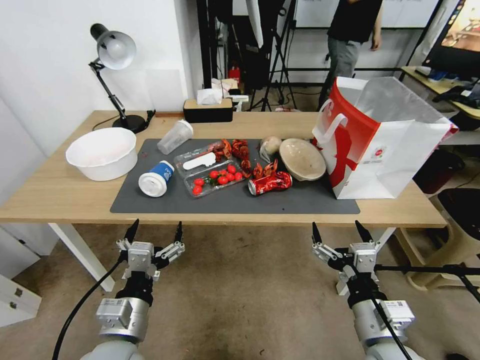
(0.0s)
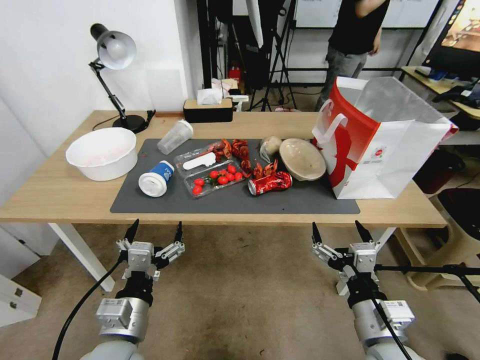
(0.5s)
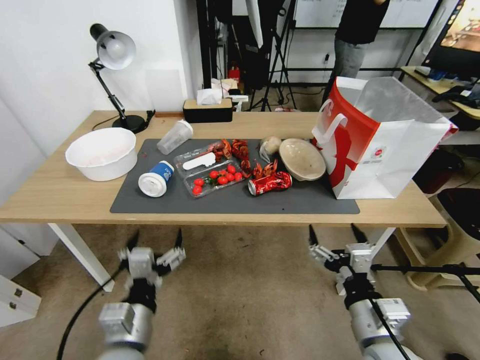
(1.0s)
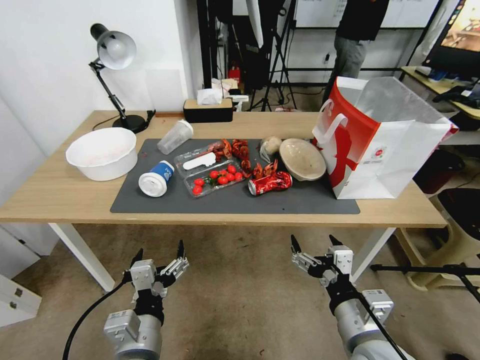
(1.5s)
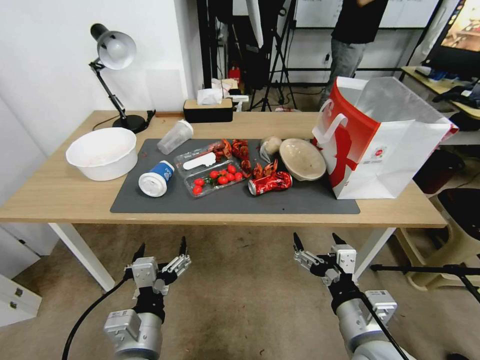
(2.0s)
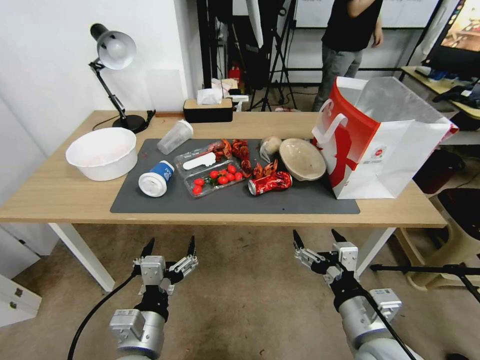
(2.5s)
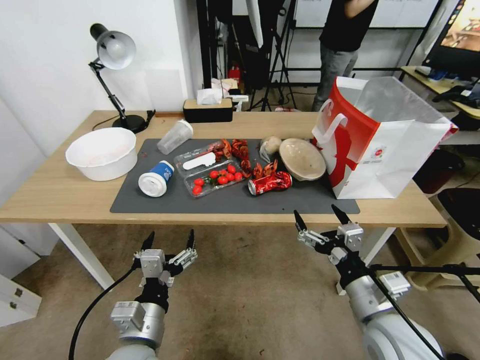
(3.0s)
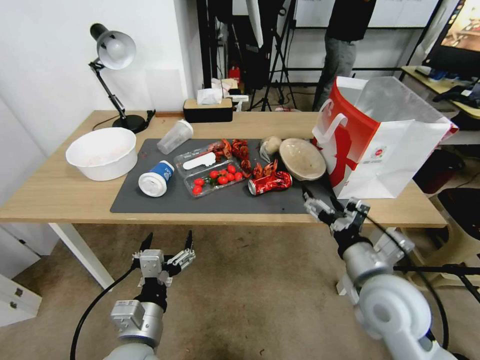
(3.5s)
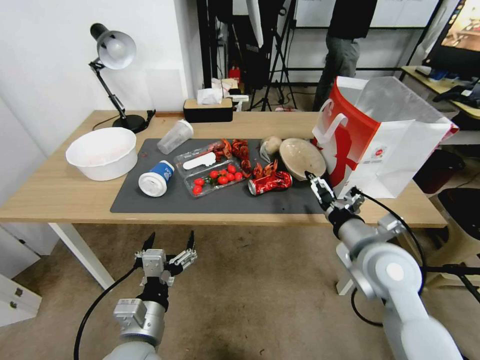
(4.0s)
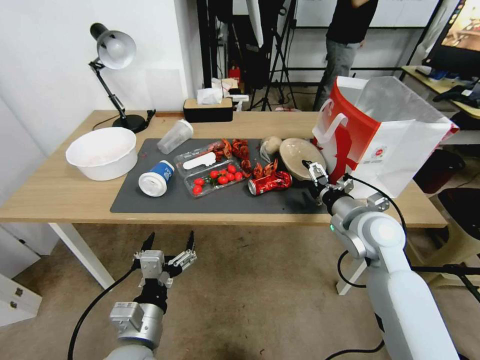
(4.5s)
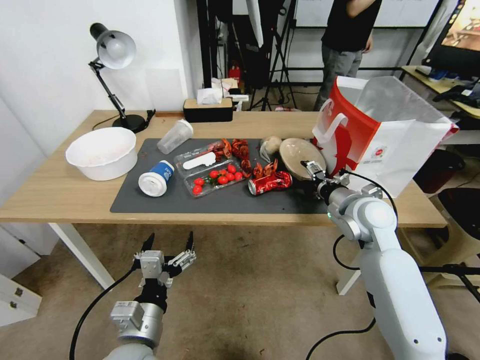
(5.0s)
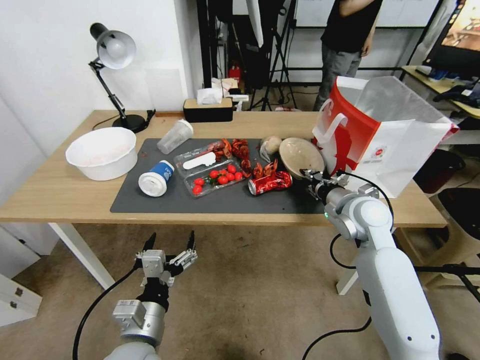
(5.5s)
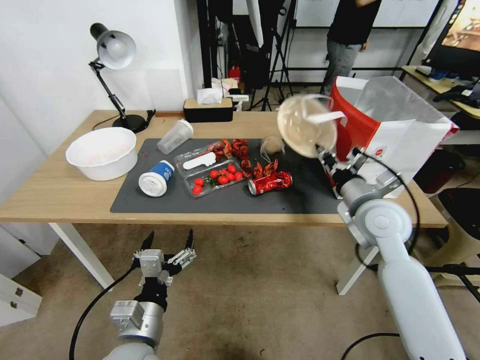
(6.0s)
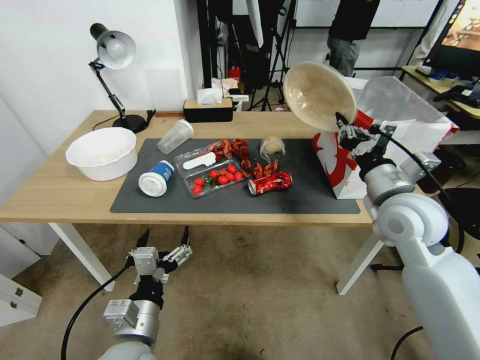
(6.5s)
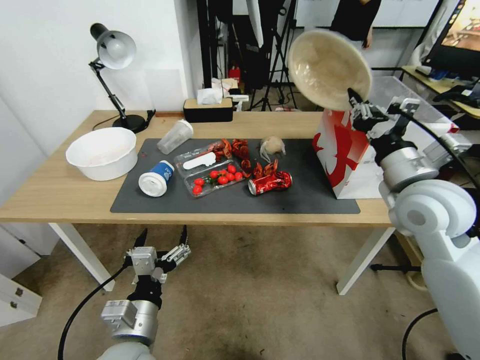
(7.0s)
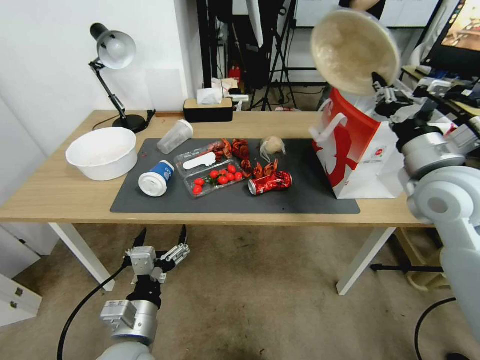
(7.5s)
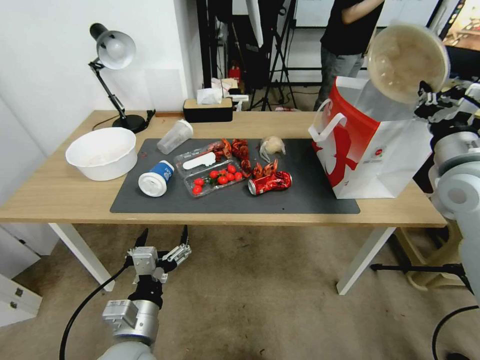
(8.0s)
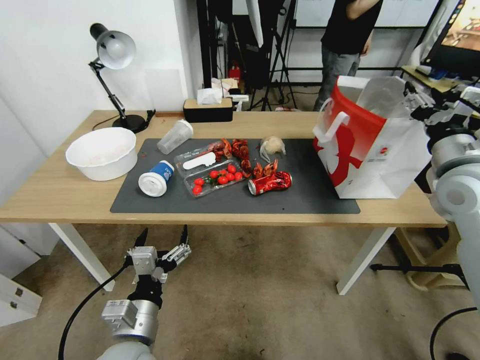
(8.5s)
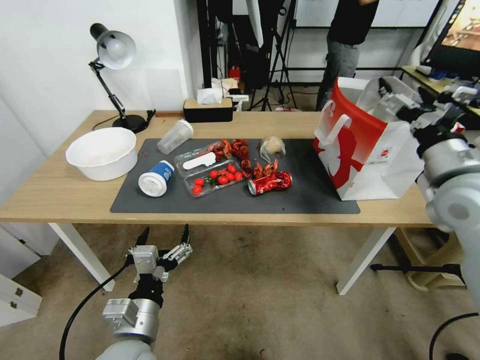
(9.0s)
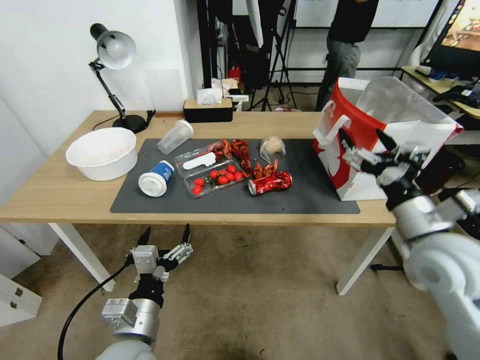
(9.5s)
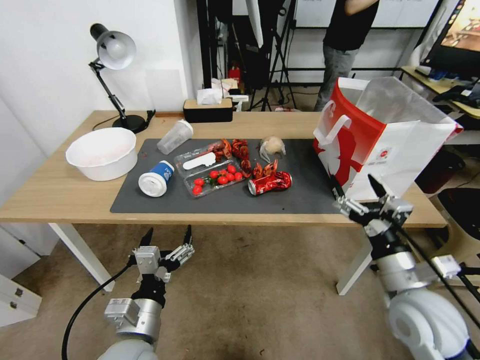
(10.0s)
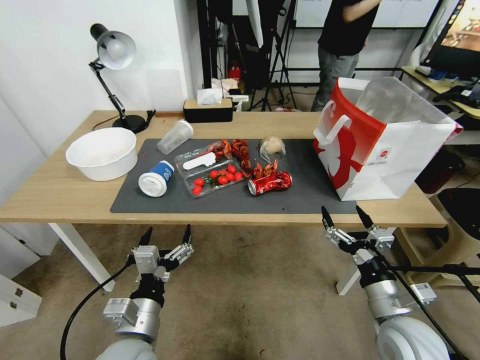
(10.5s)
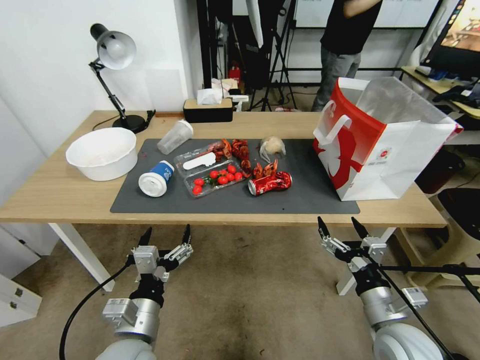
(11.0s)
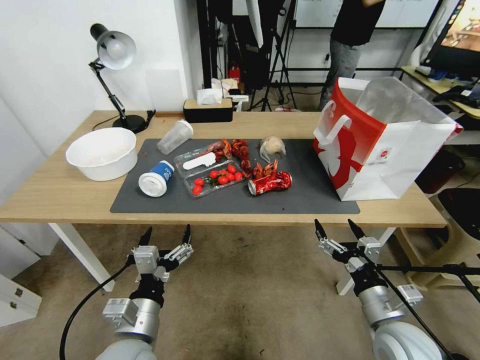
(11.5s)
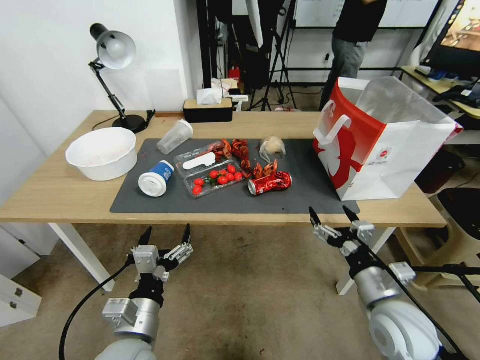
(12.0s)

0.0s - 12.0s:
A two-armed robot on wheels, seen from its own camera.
2.0s - 4.0s: The right gripper moves forward, roughly 15 cm.
4.0s - 6.0s: The right gripper goes about 10 cm forward, and closes.
6.0s - 8.0s: The right gripper travels upward and to the right by some 15 cm.
8.0s - 10.0s: The right gripper shifts some 20 cm downward and backward, and opens its fingers.
10.0s - 12.0s: The right gripper heads downward, covering approximately 5 cm.

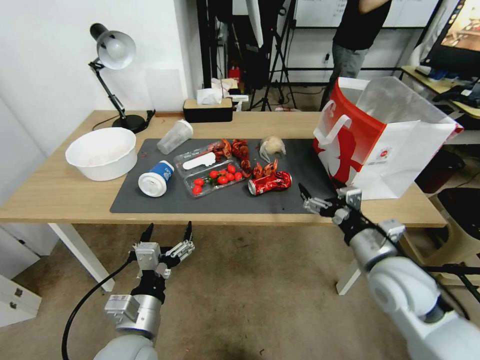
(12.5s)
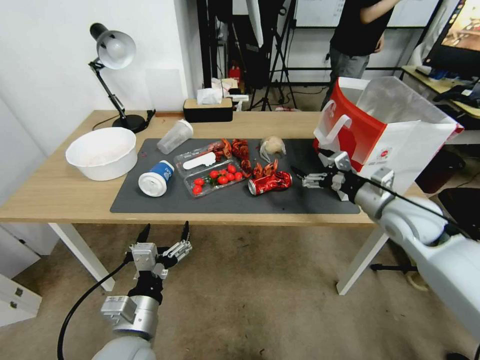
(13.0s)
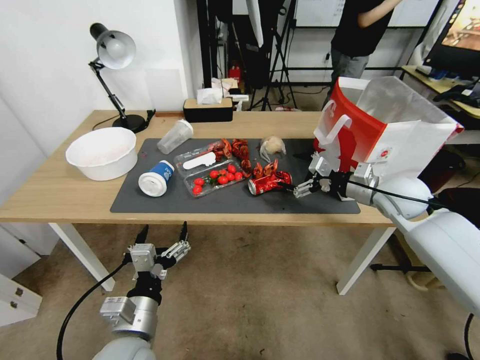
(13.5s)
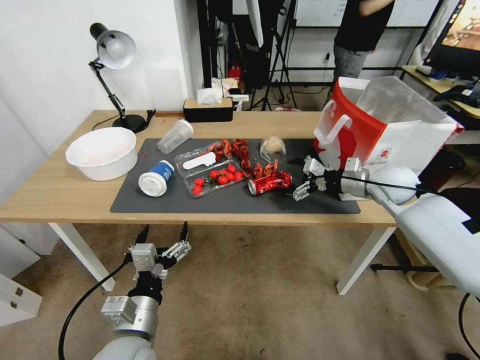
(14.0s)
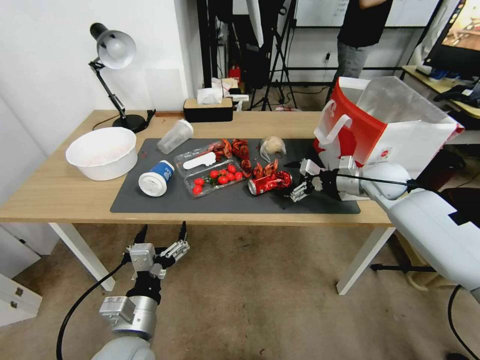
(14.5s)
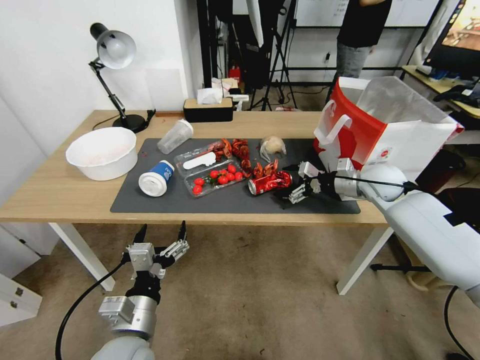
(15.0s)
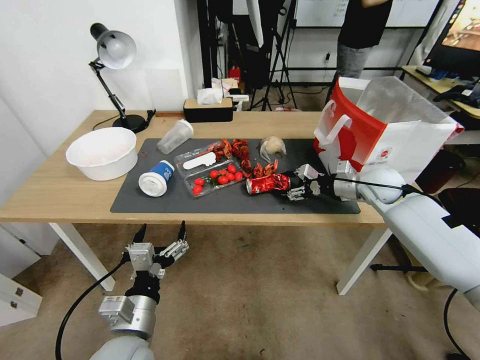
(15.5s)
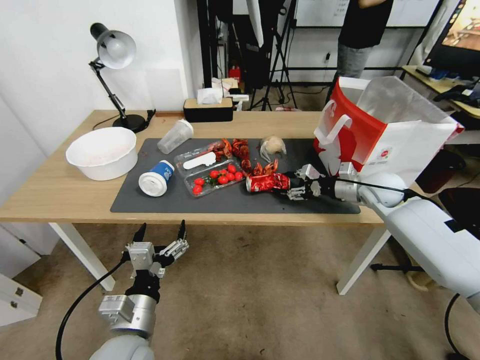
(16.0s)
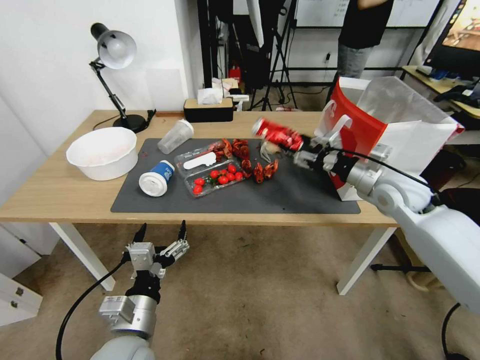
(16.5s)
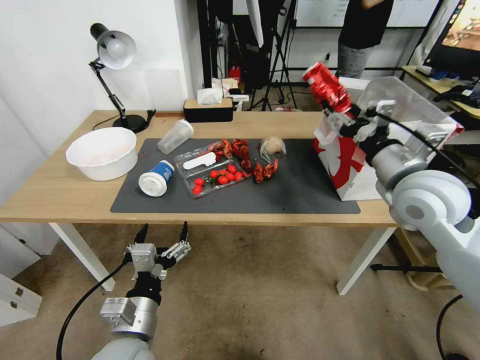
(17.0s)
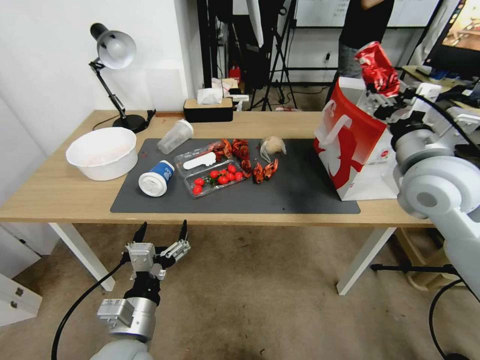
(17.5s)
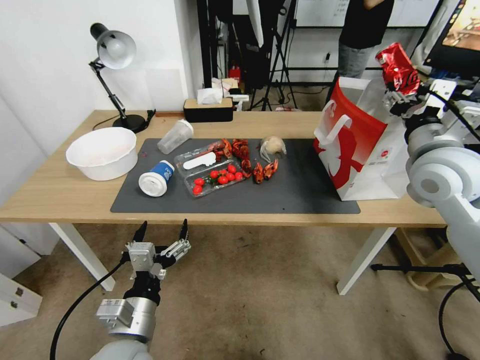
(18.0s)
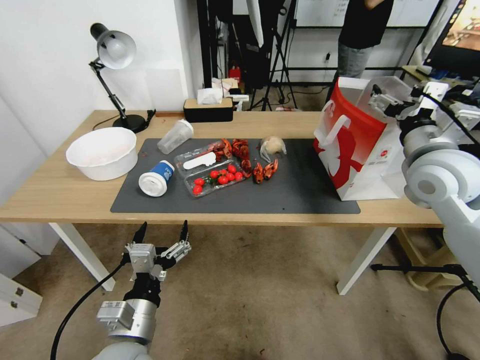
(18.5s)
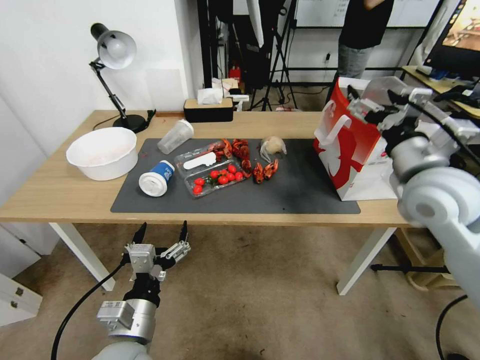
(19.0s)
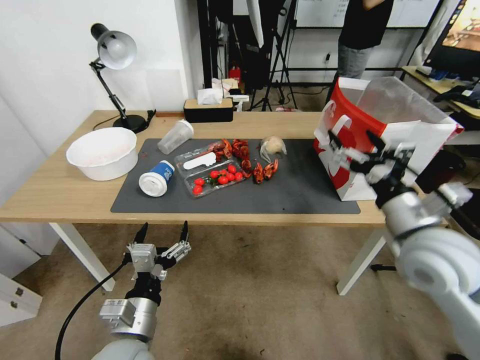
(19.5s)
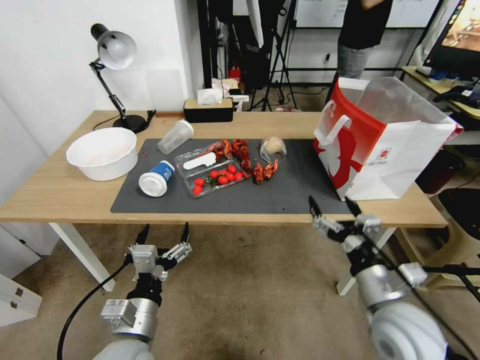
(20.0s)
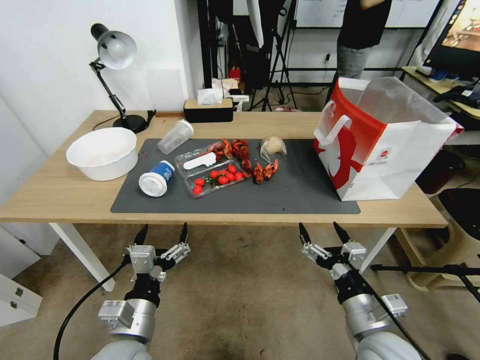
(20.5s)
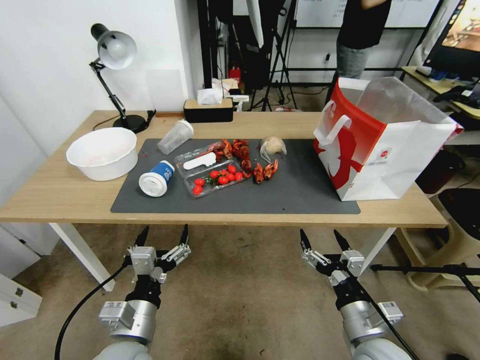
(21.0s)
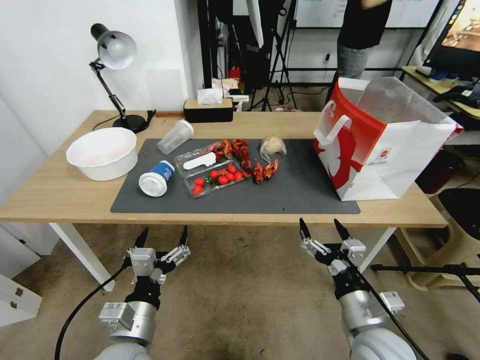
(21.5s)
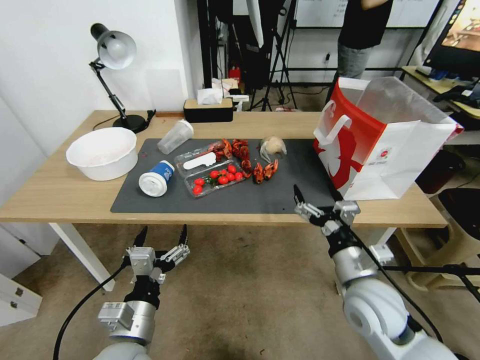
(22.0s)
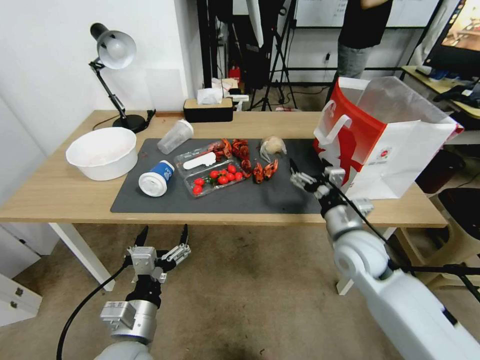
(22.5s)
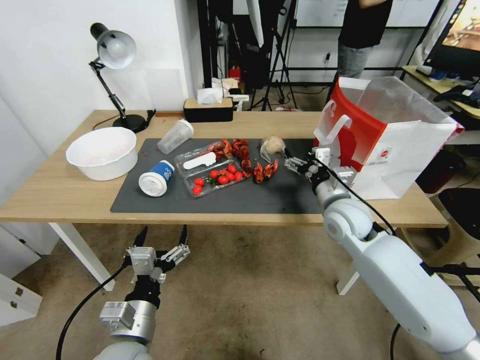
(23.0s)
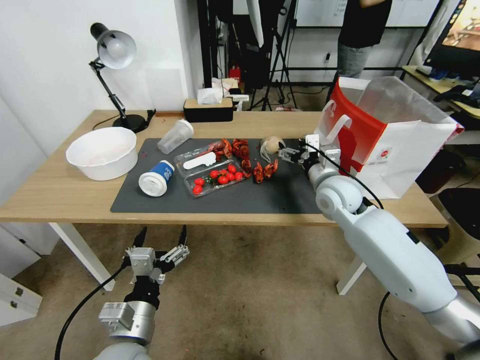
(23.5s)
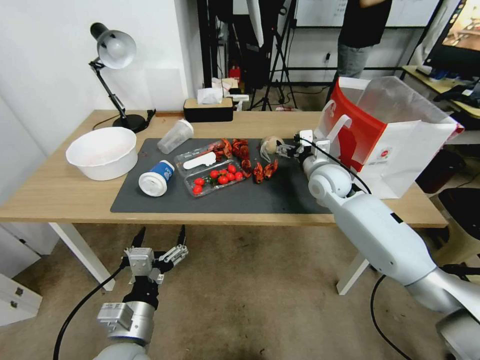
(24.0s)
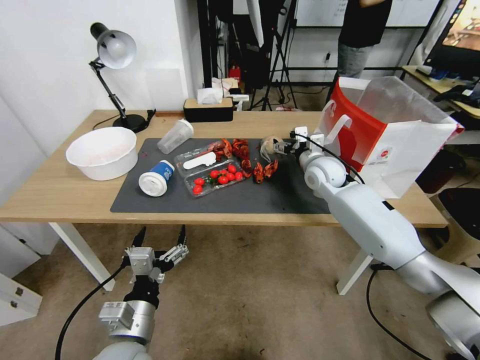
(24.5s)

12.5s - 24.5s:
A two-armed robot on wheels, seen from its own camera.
12.5s - 14.5s: The right gripper shifts about 25 cm forward.
14.5s - 16.5s: The right gripper heads backward, covering approximately 5 cm, and closes up.
16.5s - 18.5s: The right gripper is displaced upward and backward by approximately 10 cm, and opens its fingers.
18.5s - 20.5s: The right gripper moves downward and backward, some 35 cm.
20.5s - 22.5s: The right gripper goes about 15 cm forward.
22.5s - 24.5s: The right gripper is displaced forward by about 20 cm.

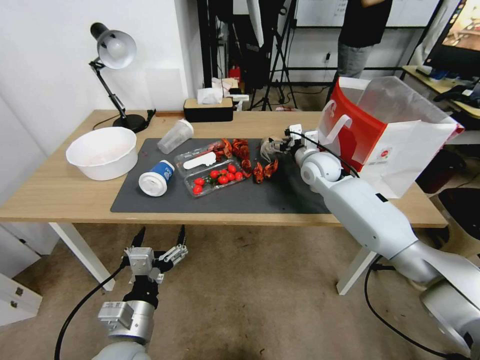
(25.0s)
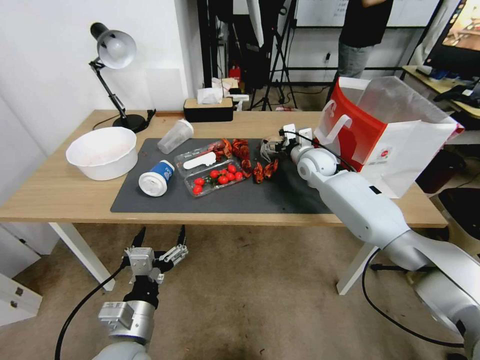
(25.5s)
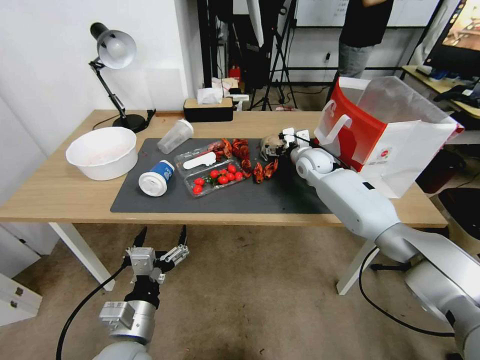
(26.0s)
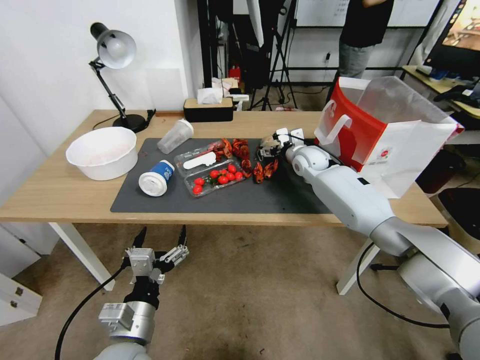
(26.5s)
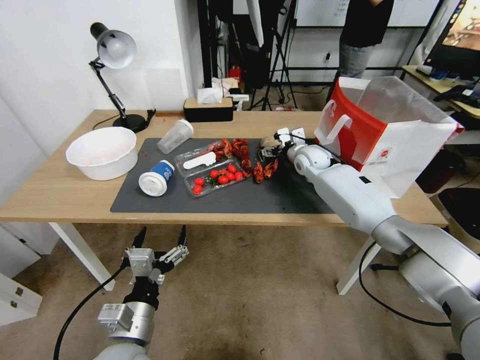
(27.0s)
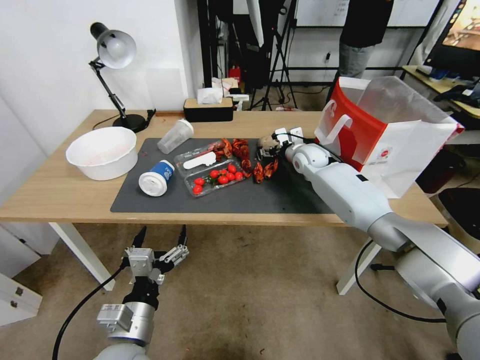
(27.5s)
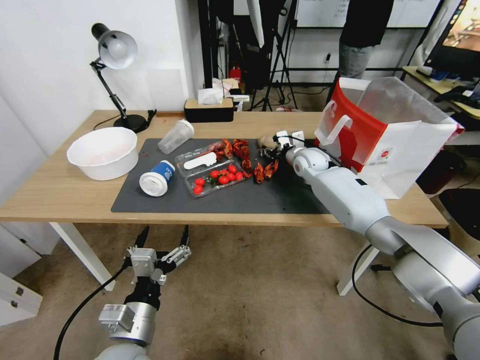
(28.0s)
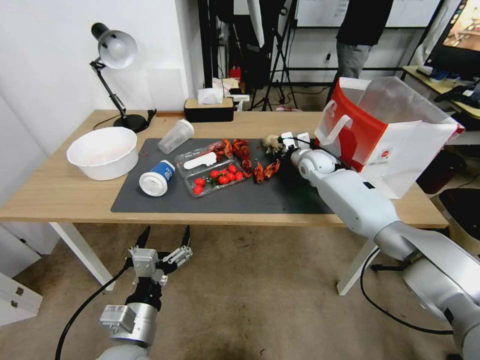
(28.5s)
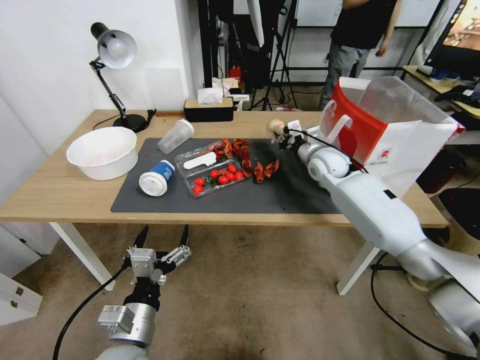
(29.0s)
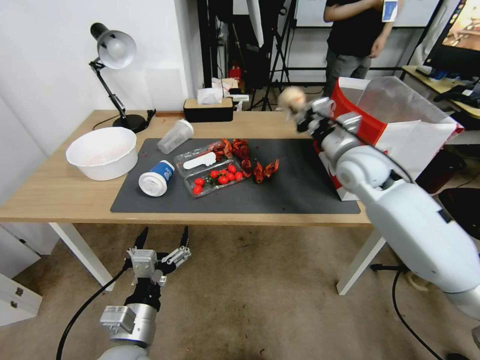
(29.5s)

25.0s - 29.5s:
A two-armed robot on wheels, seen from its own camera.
25.0s - 27.0s: The right gripper goes about 5 cm forward.
27.0s - 29.5s: The right gripper goes some 20 cm backward and upward, and closes its fingers.
